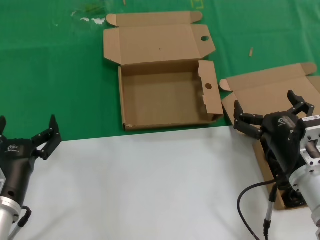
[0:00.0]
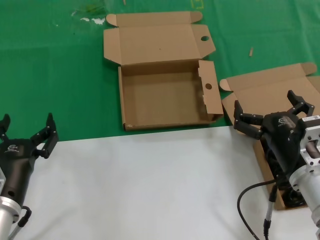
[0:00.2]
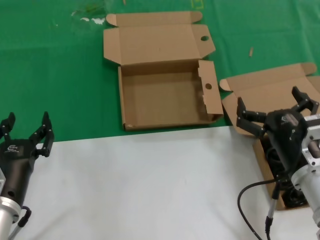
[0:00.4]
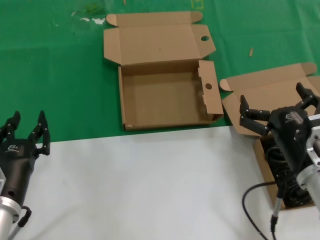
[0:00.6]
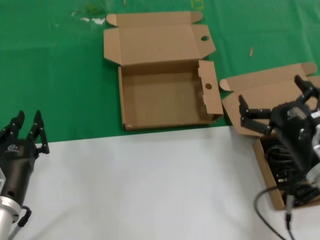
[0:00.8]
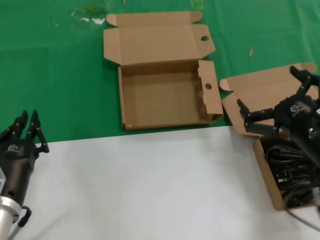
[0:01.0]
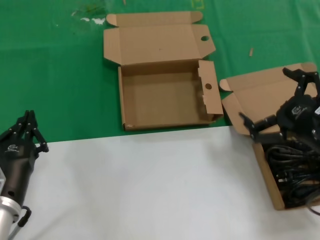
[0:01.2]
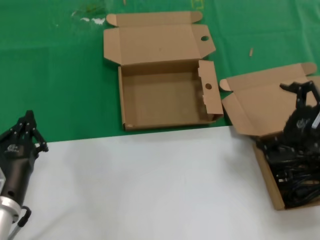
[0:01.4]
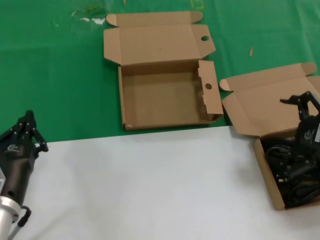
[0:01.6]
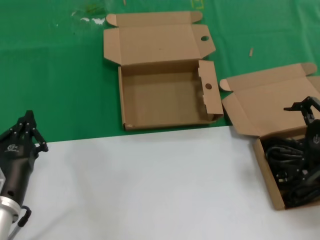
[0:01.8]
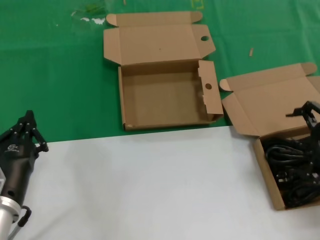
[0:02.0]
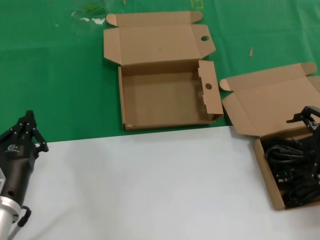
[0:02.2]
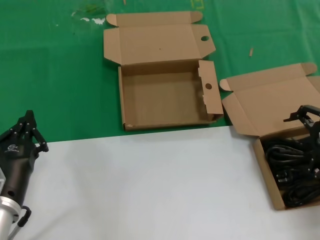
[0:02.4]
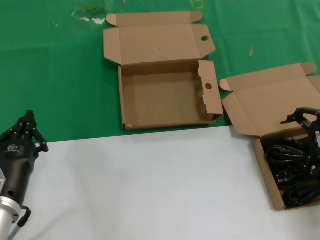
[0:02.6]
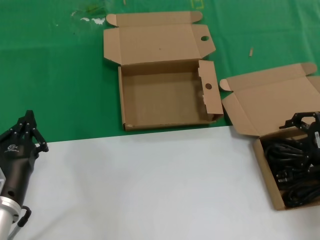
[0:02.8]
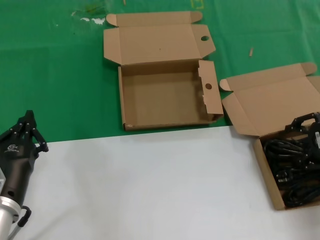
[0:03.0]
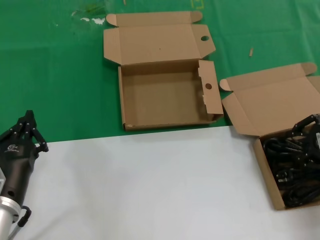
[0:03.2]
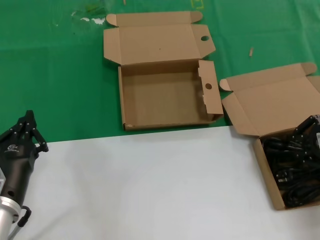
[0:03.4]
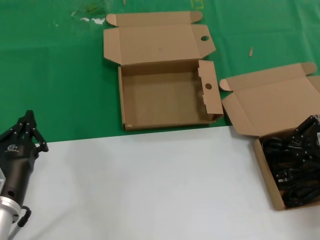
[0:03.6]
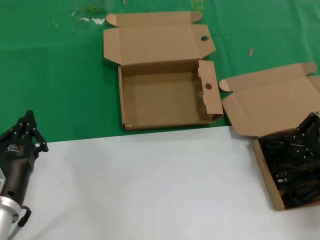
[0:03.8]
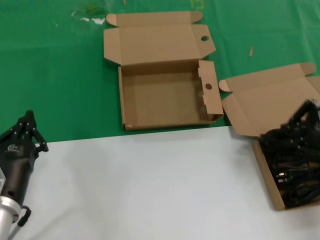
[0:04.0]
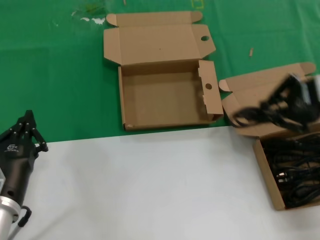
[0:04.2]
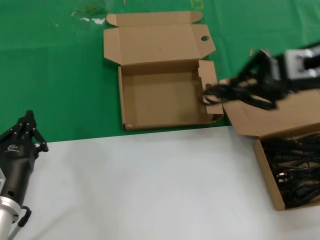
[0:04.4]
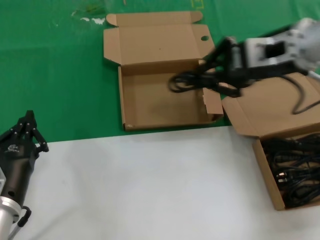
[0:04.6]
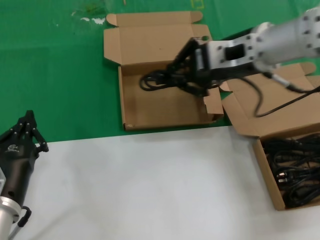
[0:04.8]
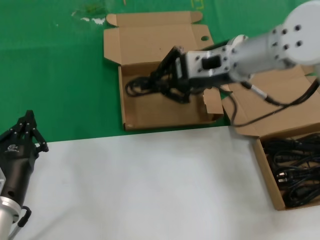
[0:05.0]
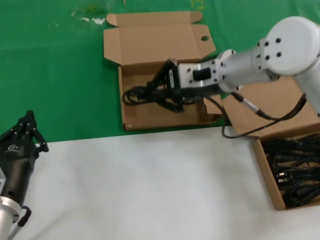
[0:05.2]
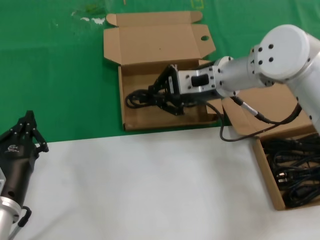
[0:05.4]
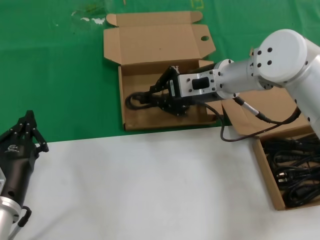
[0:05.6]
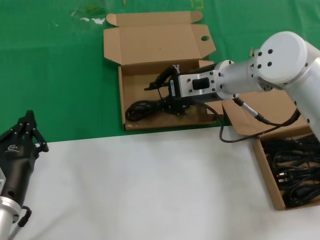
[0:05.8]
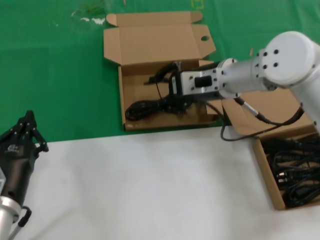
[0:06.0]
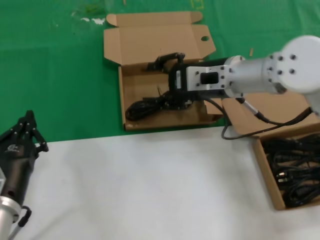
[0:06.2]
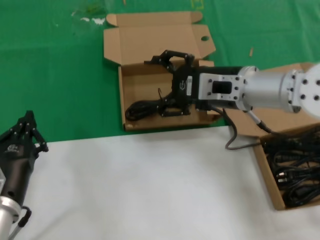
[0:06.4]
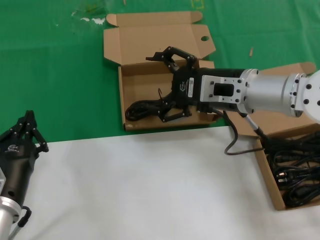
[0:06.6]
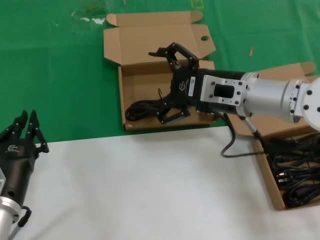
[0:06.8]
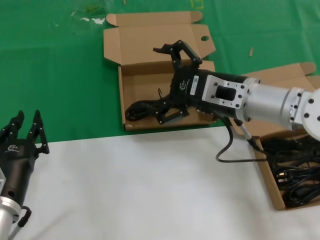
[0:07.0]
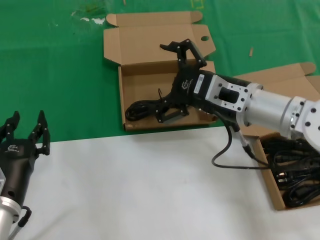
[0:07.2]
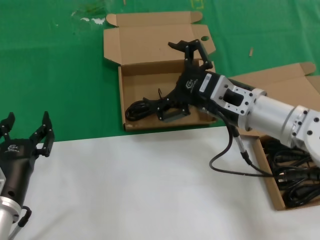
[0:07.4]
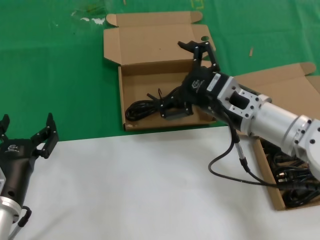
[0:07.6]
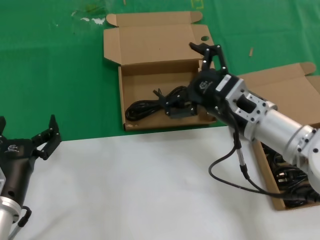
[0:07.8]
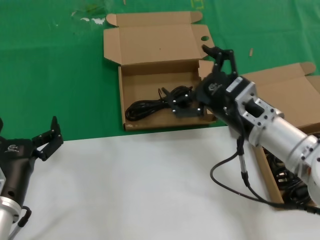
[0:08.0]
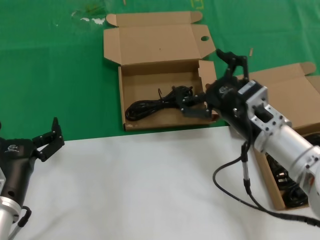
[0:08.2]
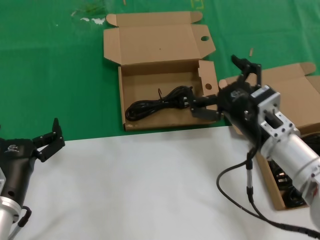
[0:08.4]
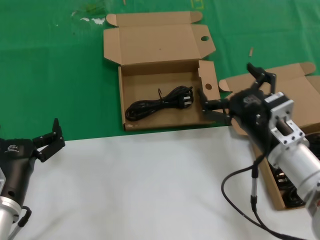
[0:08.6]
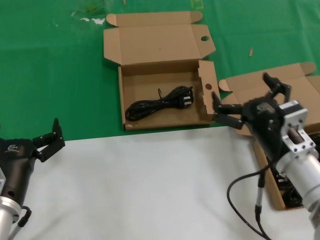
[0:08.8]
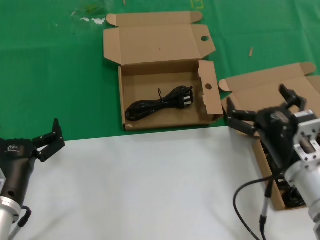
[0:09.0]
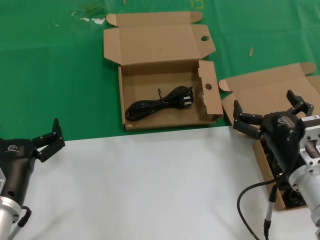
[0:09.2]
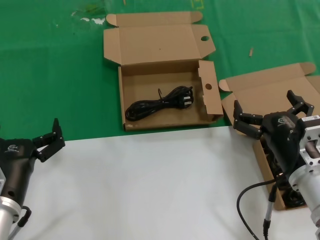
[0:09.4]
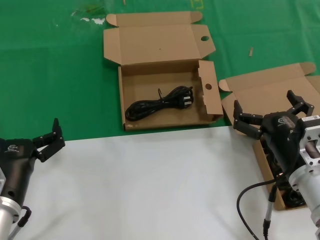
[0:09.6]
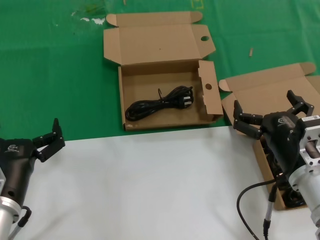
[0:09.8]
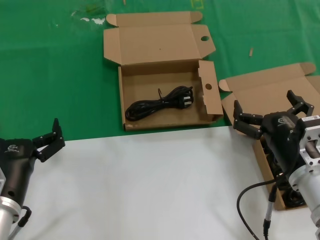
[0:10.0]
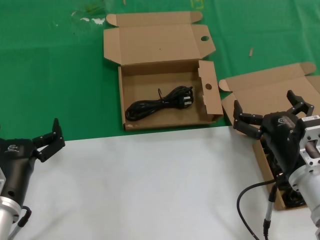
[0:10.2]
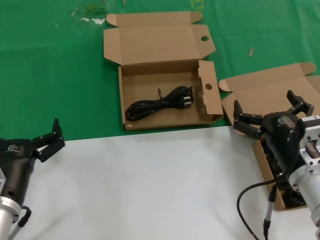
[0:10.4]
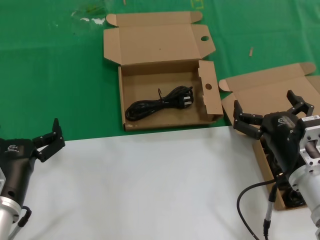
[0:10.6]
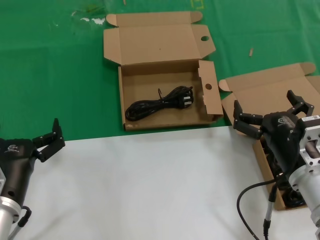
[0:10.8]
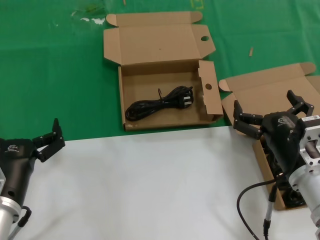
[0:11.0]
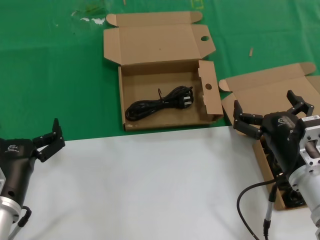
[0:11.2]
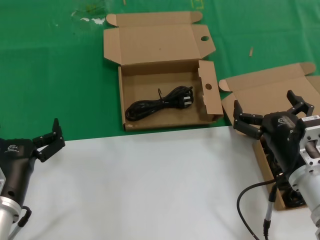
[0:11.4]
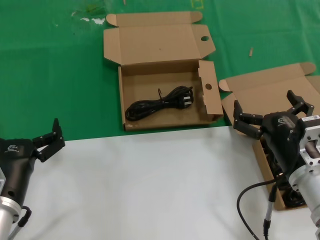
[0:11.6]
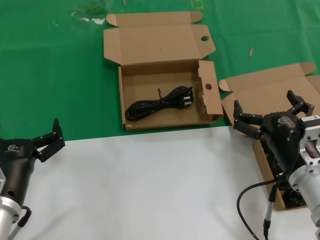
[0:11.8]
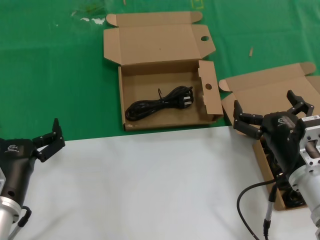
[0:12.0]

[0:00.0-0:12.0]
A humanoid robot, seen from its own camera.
Task of the whole recording: take the parts from the box containing them and put them into an empty box.
Step, 0:00.0 to 0:03.6: Grasp the data cable.
Step, 0:03.8 to 0:06.0: Place the data cable in the another box.
0:00.0 to 0:01.6: The right hand heads upward and to the right, covering approximately 15 cm.
0:01.6 to 0:03.0: The right hand heads forward, covering approximately 5 cm.
0:03.0 to 0:04.4: The right hand travels upward and to the left by approximately 15 cm.
0:04.4 to 0:06.0: The right hand heads to the left, downward and forward, covering roughly 20 cm.
0:06.0 to 0:07.6: The right hand travels backward and downward by some 10 cm.
0:07.6 to 0:09.0: The right hand travels downward and backward by about 10 cm.
0:09.0 to 0:12.0: Neither hand changes place.

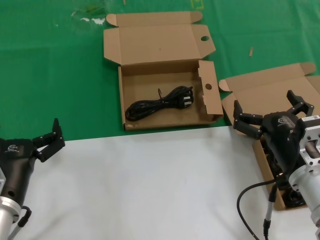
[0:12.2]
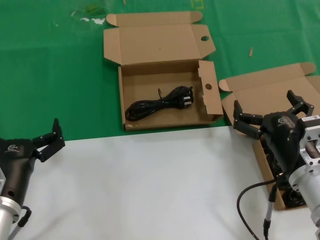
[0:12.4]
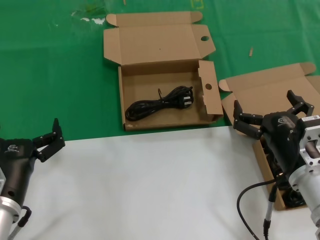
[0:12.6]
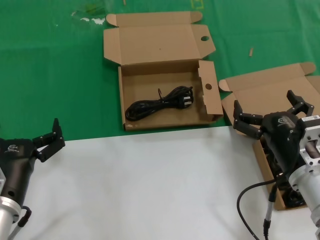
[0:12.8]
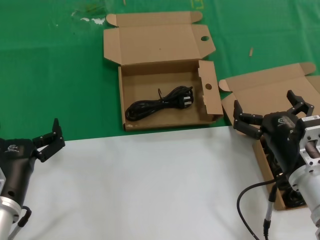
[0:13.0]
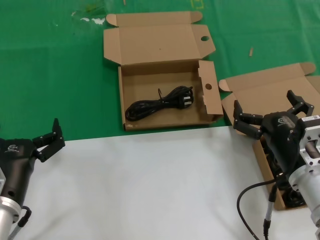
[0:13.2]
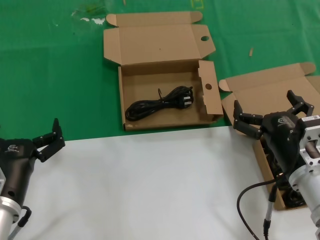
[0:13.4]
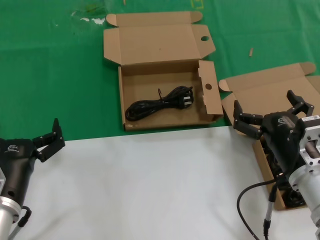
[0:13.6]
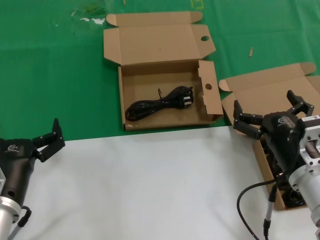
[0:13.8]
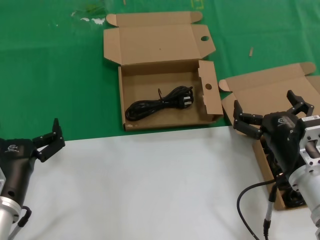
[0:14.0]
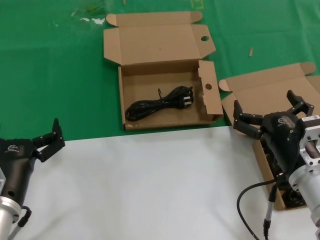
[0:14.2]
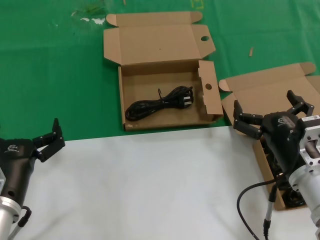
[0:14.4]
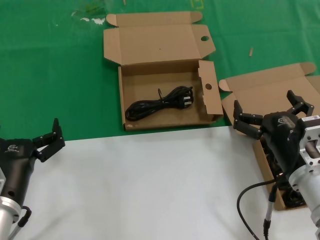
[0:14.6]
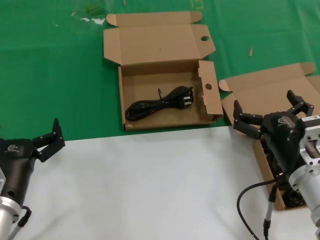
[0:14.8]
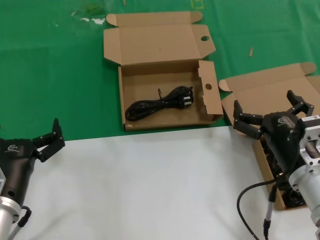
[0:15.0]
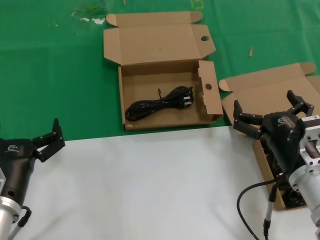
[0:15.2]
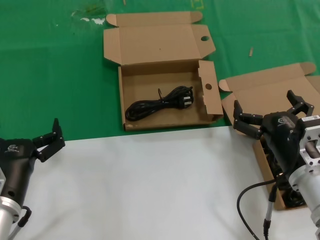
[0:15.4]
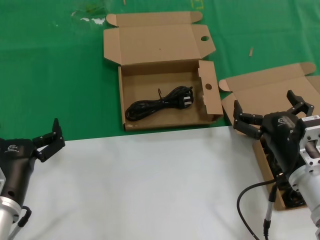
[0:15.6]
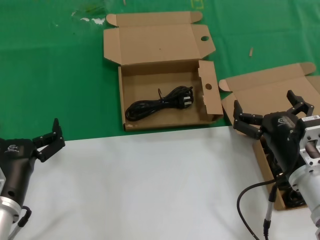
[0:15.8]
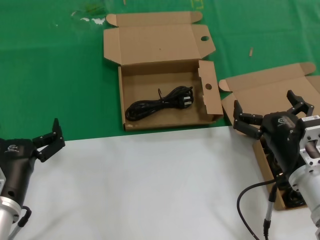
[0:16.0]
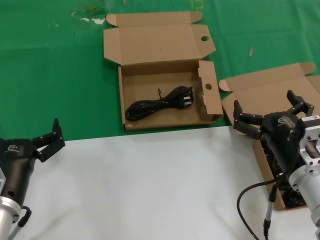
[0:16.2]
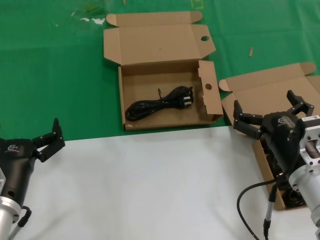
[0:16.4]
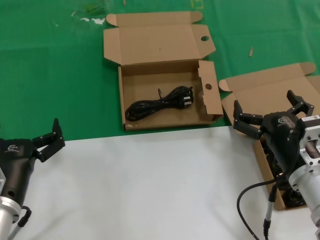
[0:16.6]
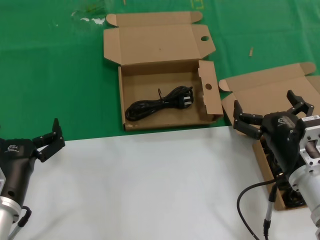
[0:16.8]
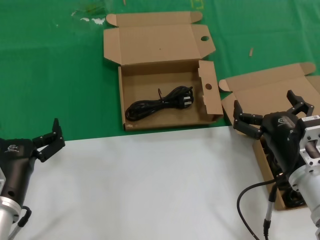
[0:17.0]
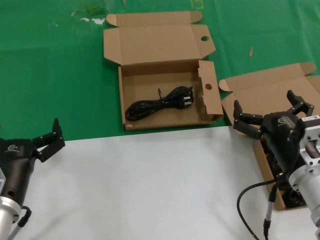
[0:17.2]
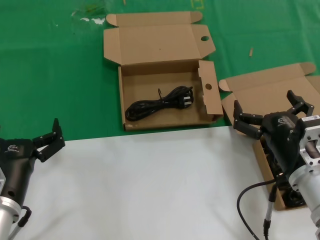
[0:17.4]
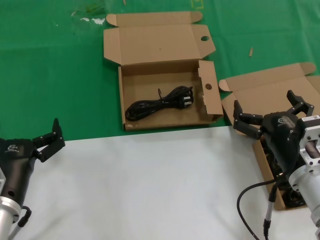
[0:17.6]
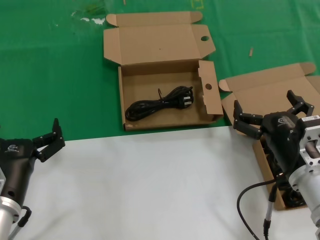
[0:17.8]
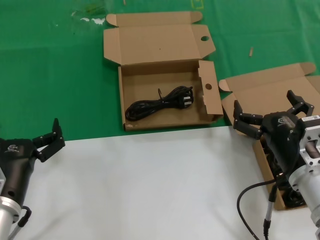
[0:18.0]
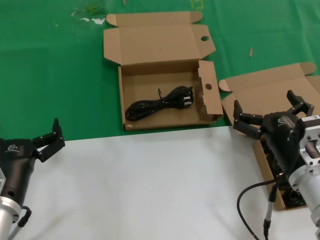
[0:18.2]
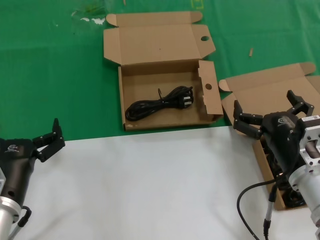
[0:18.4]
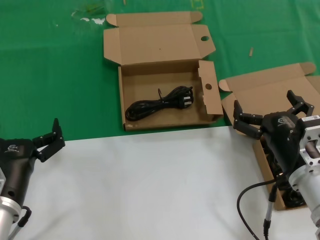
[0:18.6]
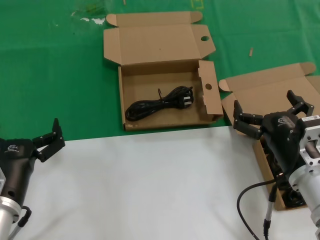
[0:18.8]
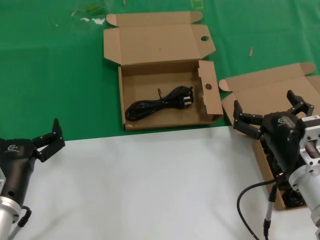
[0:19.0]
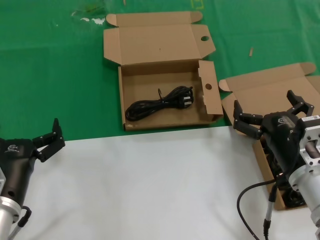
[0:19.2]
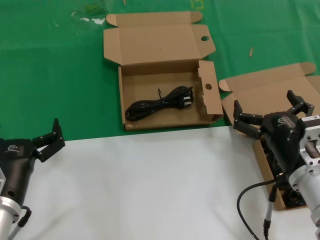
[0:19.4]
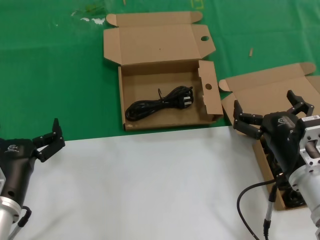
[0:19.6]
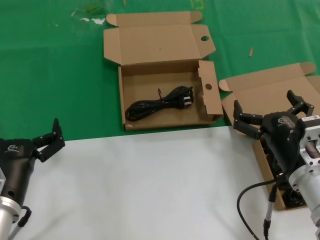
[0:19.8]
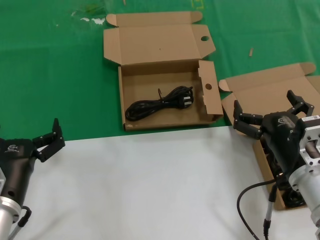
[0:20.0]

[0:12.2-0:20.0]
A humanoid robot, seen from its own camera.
Task of the whole recording: take the parts from the box containing them and put them into an empty box.
0:12.2 to 0:20.0: The two hands keep their place.

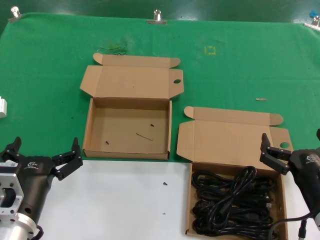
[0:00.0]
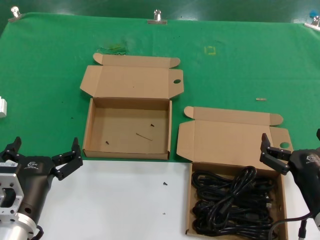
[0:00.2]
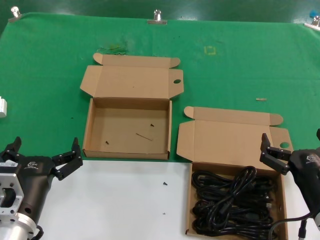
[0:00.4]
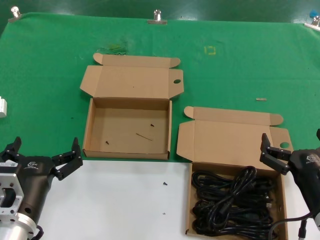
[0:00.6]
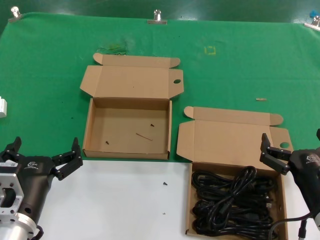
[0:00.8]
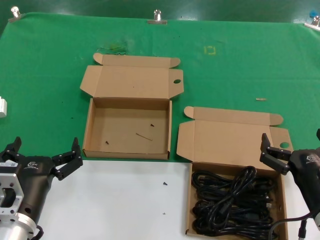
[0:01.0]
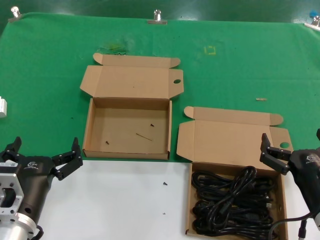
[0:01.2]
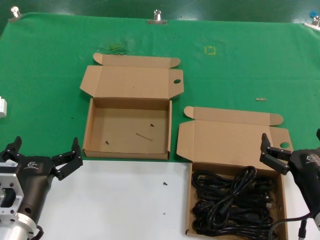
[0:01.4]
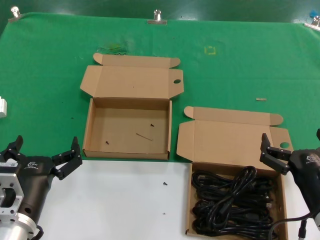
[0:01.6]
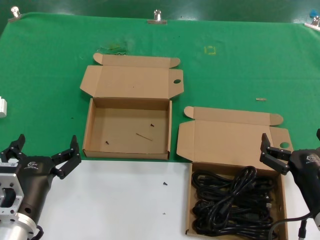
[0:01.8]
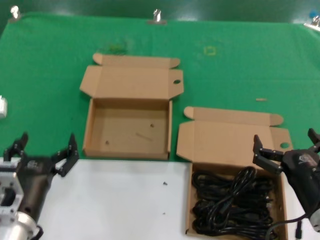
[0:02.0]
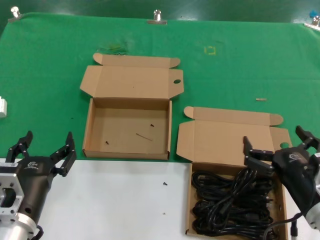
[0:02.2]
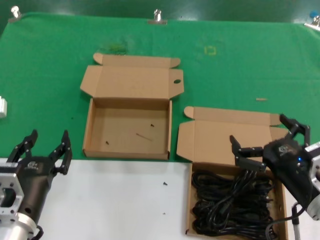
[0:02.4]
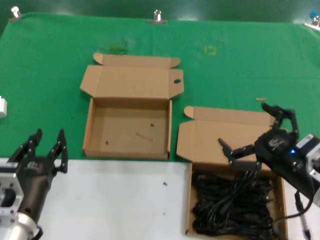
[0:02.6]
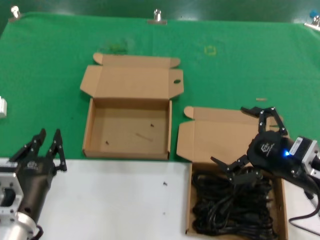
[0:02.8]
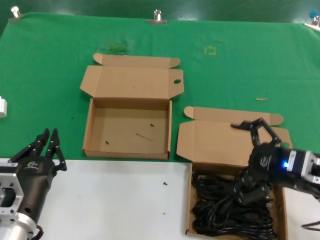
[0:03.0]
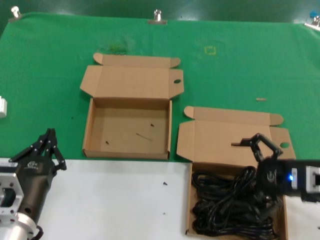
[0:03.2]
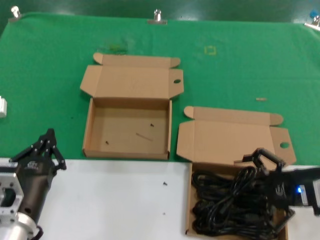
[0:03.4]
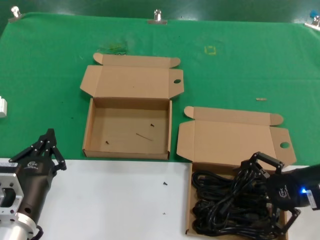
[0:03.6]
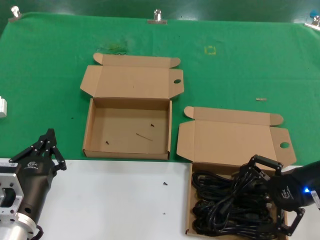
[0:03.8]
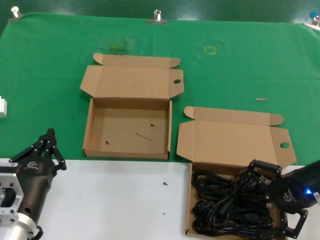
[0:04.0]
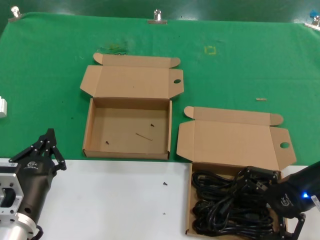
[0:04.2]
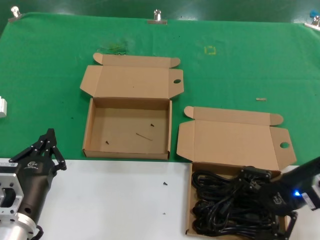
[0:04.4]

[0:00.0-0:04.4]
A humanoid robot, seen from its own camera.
Task of the whole recording: take the parts from the box containing them and put them into an empty box.
0:00.0 to 0:01.4: Both hands stay put.
0:01.4 to 0:03.0: The right hand travels upward and forward by roughly 10 cm.
0:03.0 to 0:04.4: The right hand is displaced forward by roughly 10 cm.
